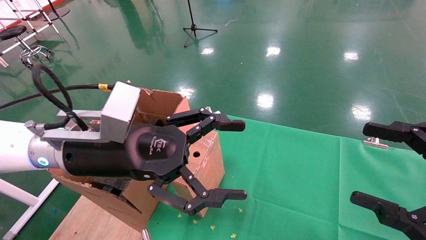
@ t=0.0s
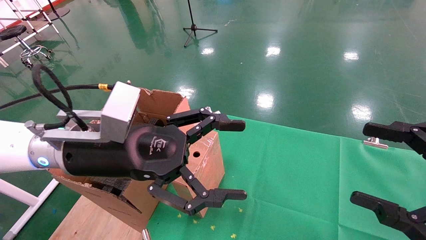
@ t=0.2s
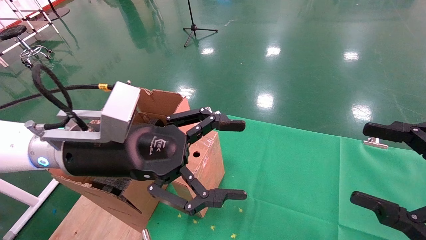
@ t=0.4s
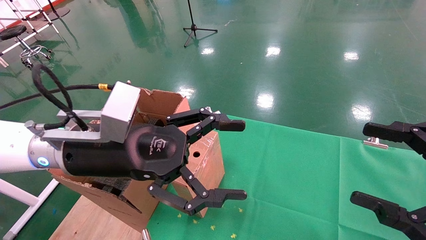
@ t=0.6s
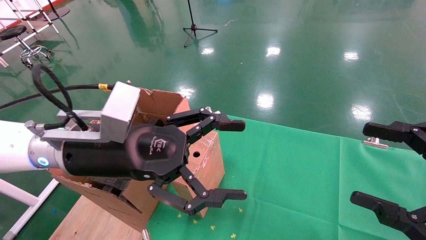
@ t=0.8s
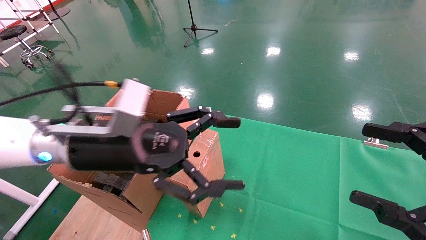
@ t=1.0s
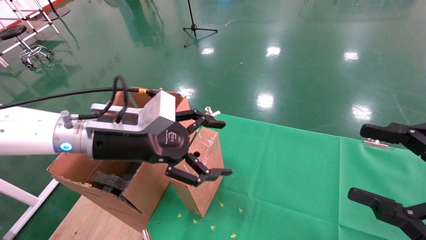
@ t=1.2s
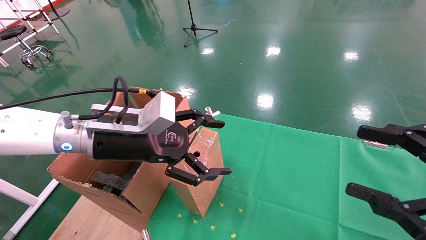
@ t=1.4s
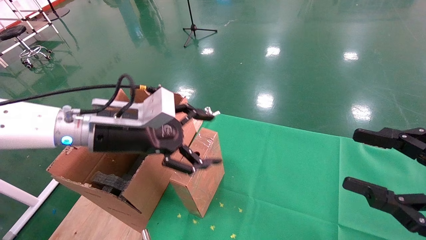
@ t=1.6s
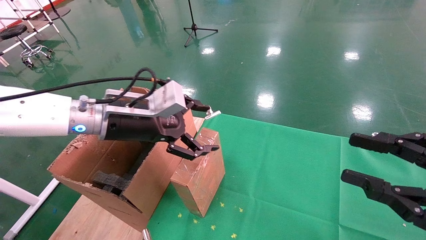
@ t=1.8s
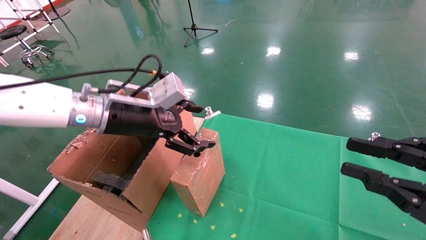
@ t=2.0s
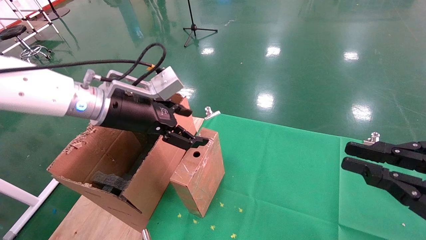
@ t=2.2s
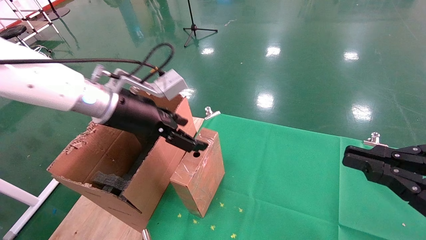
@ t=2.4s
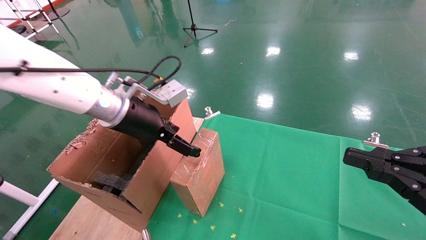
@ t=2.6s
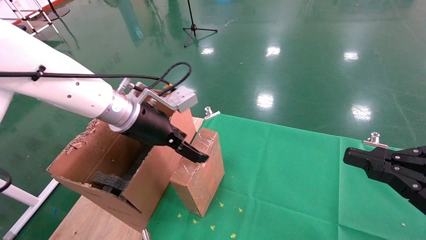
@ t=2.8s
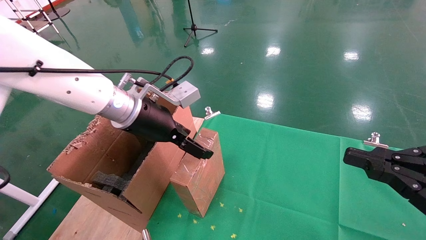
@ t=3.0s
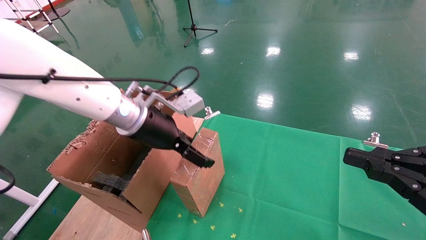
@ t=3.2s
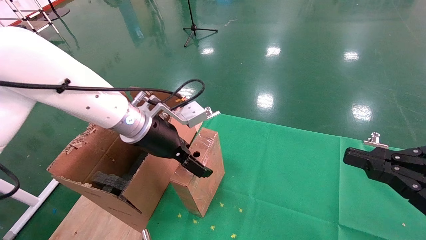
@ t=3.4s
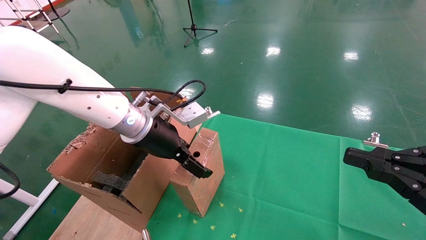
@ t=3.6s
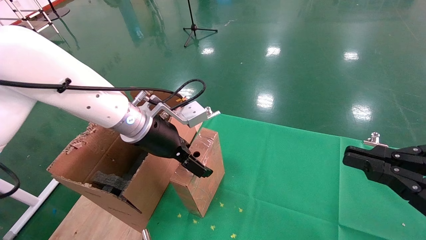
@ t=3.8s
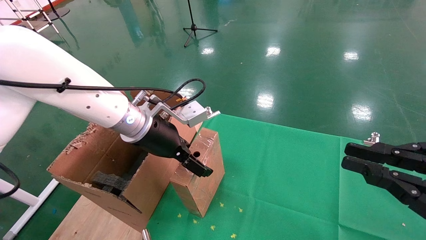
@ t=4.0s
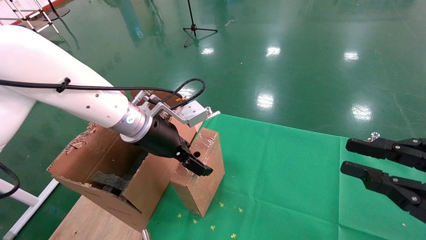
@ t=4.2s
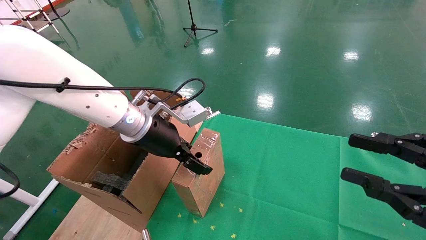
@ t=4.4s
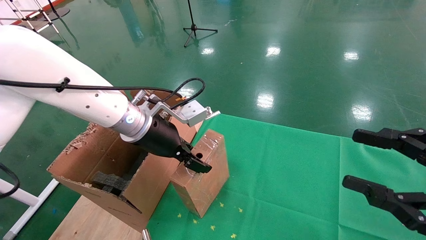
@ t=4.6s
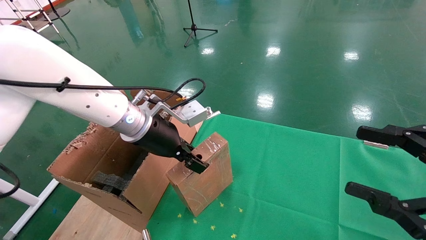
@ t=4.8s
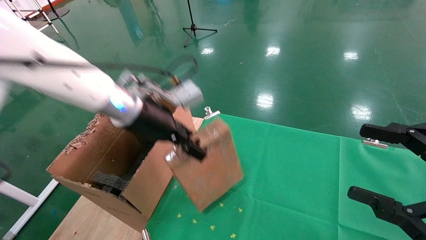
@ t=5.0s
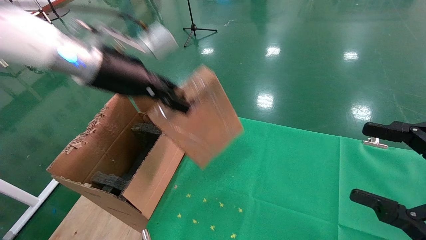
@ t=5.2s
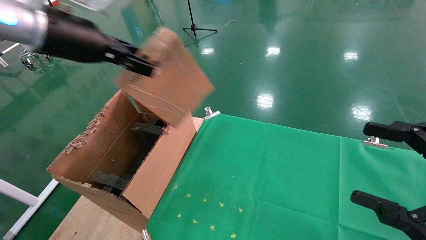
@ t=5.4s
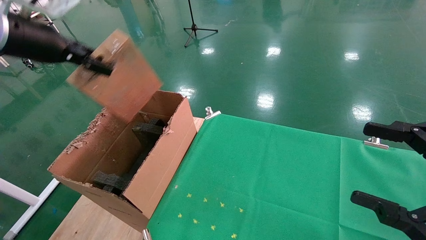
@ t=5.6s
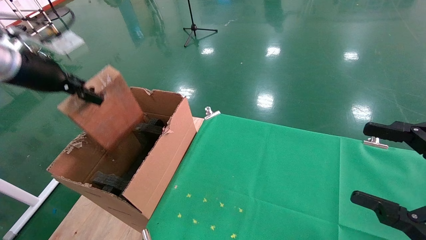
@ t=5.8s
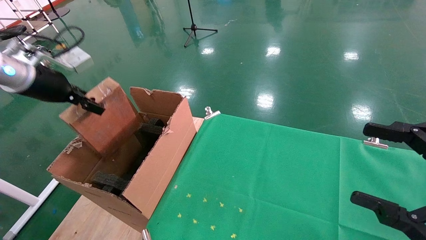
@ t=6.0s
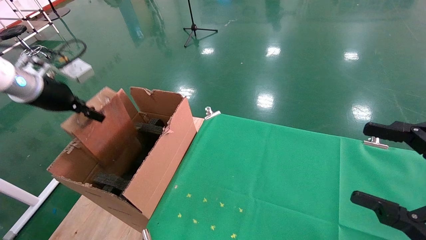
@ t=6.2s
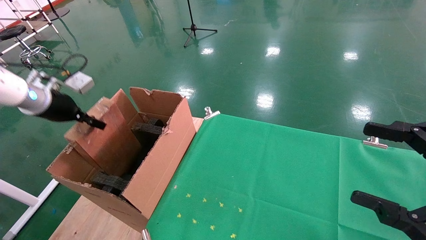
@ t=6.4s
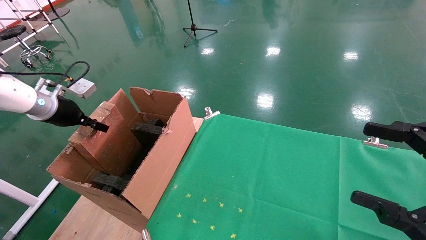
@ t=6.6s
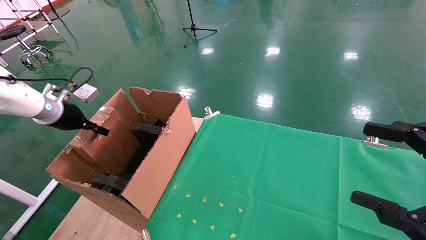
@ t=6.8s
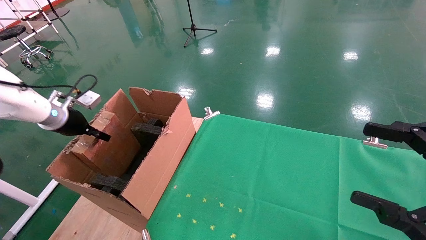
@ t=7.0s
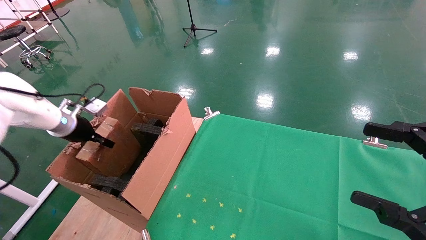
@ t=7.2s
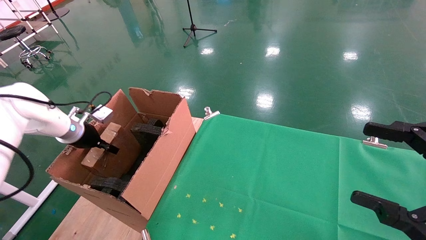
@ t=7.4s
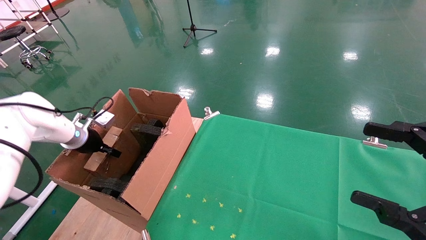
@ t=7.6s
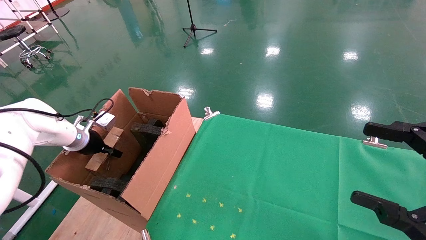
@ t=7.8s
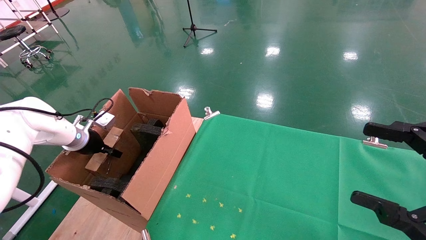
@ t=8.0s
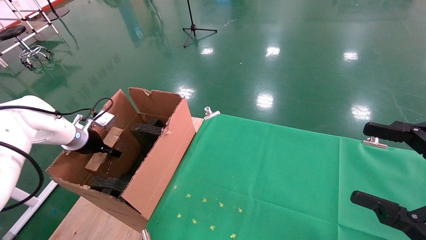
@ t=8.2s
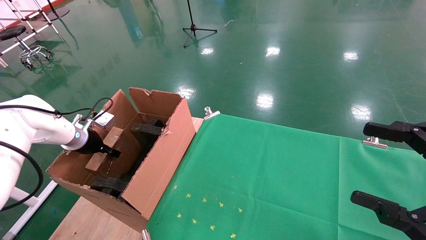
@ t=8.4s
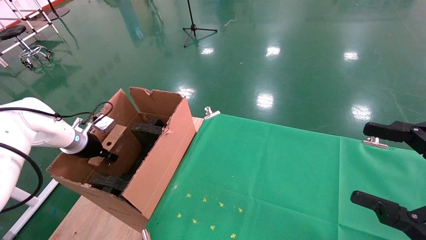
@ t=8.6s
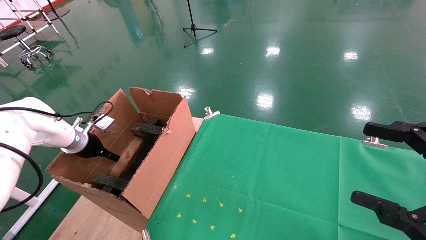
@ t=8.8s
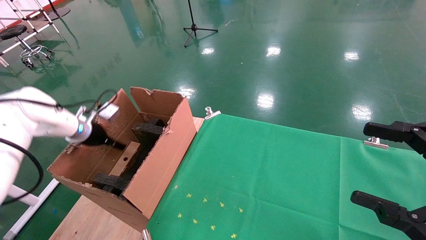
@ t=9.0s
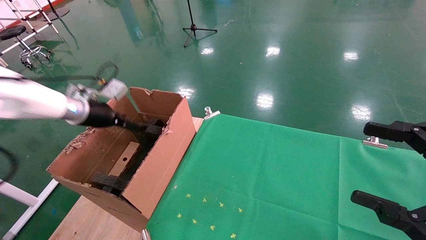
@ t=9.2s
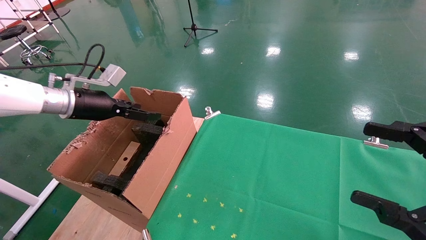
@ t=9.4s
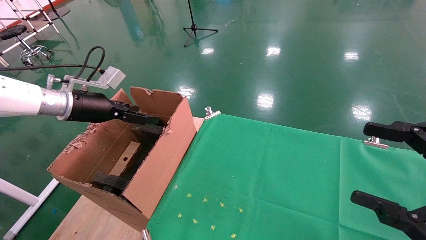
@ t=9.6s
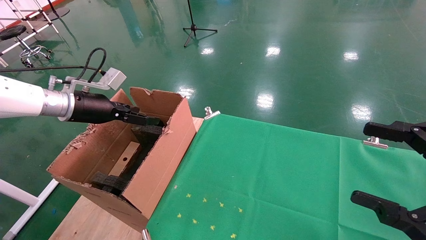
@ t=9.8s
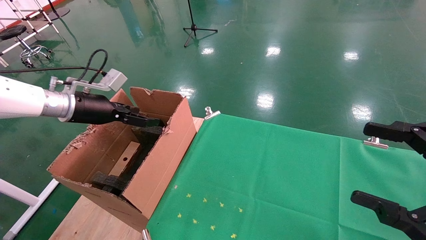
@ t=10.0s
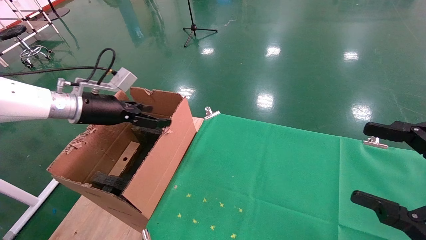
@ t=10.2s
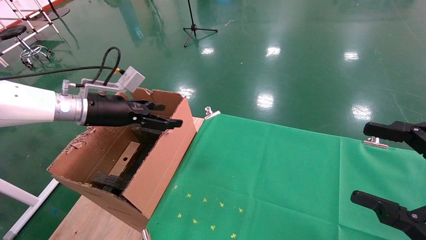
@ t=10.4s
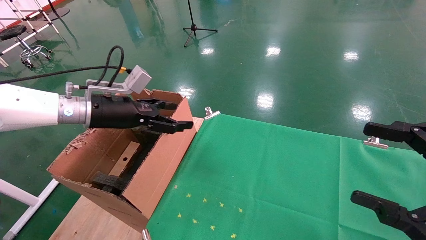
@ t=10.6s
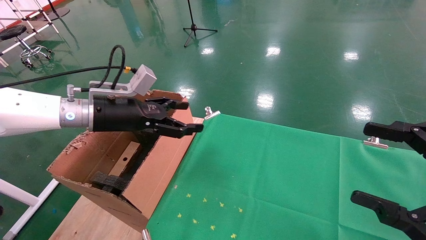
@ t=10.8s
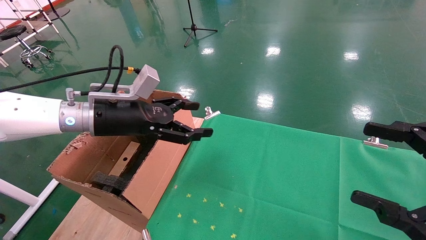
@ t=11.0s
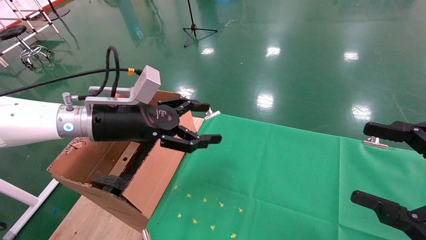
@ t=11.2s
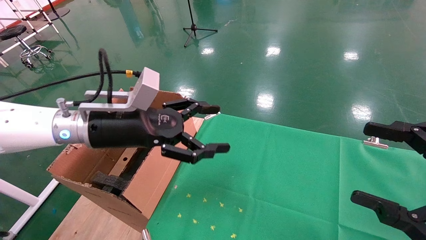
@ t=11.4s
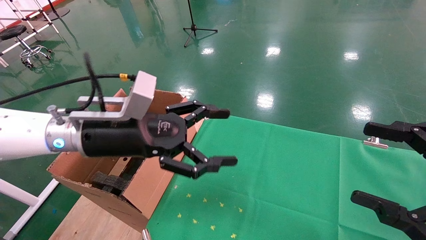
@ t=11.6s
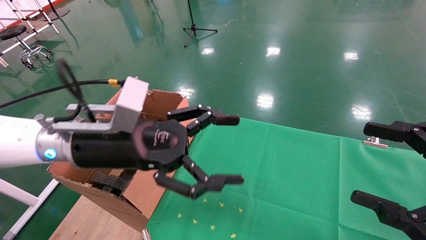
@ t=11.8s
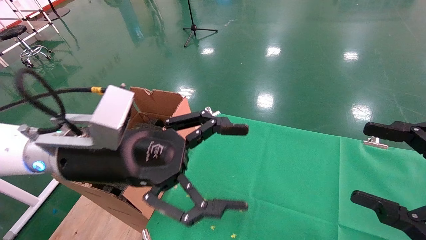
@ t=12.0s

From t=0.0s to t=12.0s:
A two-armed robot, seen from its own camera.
Task of the whole recording: using a robotic arm to pick up a cardboard box and palace it the carton.
Step, from t=1.2s to t=4.6s: Pick up the mouse and the power cord paper box.
Step, from t=4.8s to t=9.2s: Place the mouse and the power cord paper box into the container.
From t=0.0s to t=1.6s: The left gripper heads forward, covering some 5 cm.
From t=1.6s to t=3.0s: The right gripper closes. Meanwhile the left gripper ends up roughly 5 cm from where it was.
From t=3.0s to t=4.4s: The grippers make only small movements.
From t=4.4s to t=6.0s: The left gripper is displaced to the left by roughly 25 cm, and closes up. Meanwhile the right gripper opens.
From t=6.0s to t=7.6s: The left gripper goes some 20 cm downward and forward.
From t=7.6s to t=9.0s: The left gripper opens.
From t=9.0s to t=10.4s: The left gripper is displaced to the right, upward and backward by some 15 cm.
From t=10.4s to t=12.0s: The left gripper is displaced to the right and backward by roughly 20 cm.

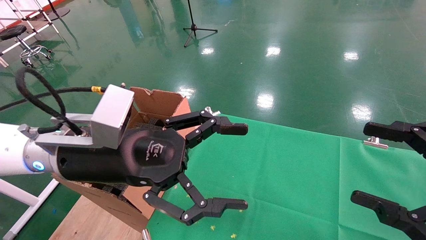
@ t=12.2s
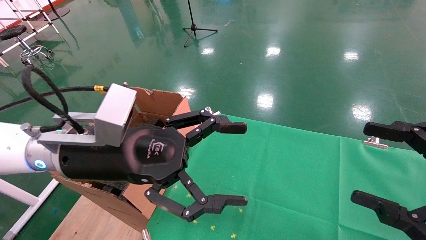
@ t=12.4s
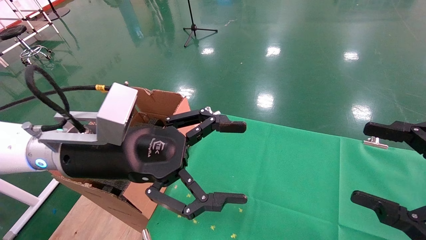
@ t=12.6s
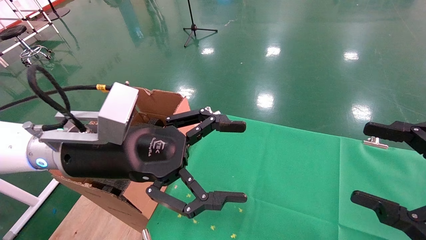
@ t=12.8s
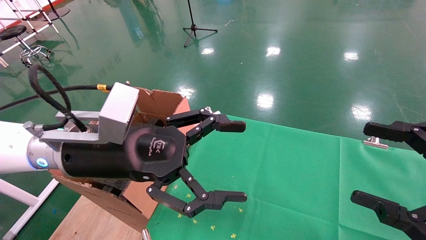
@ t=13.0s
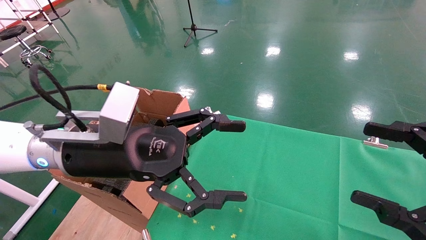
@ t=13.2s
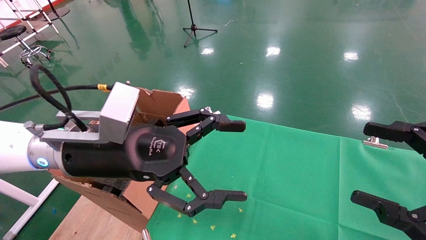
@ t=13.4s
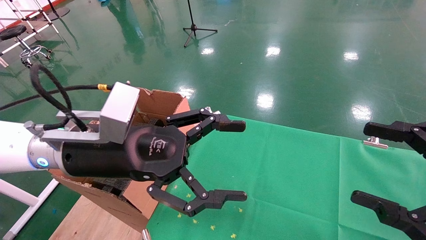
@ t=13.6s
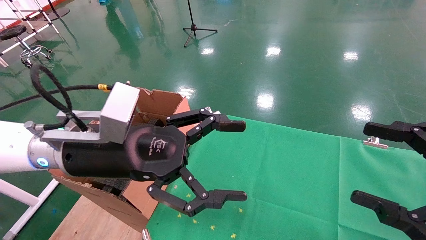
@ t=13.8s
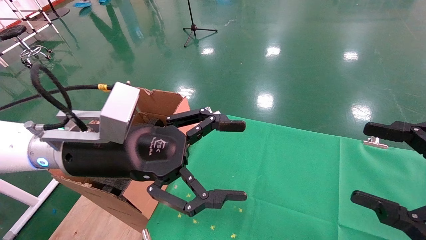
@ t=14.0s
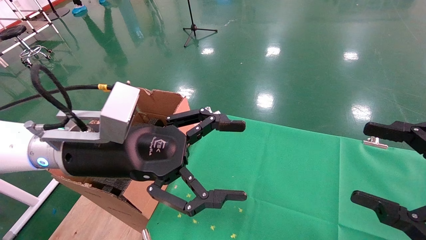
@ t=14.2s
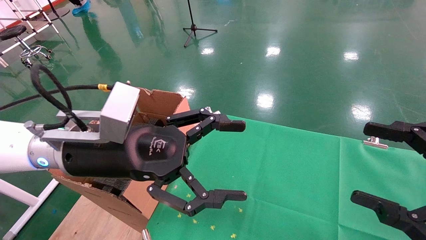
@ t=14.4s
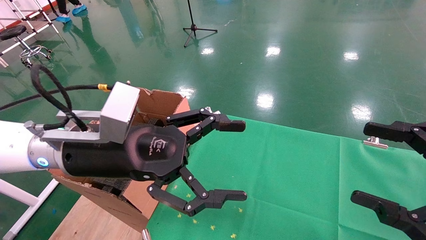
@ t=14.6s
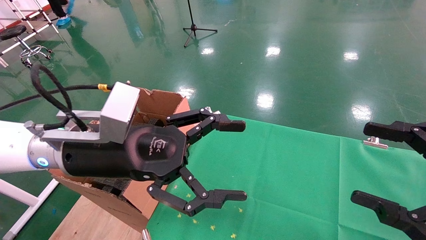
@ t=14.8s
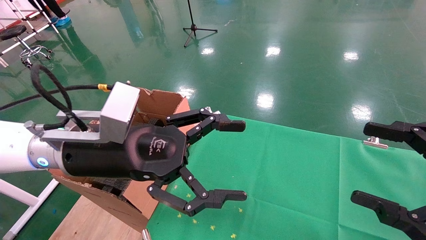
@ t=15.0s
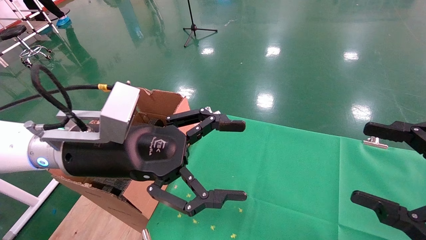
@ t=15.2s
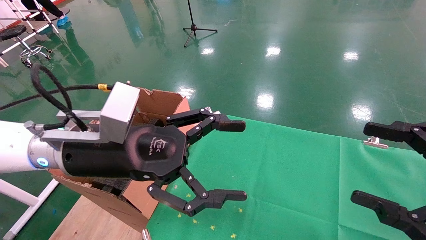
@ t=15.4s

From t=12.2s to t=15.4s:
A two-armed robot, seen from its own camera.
Task of the whole recording: using a robotic arm to pick up a cardboard box and palace it the carton.
From t=12.2s to t=15.4s: Neither gripper changes place.
